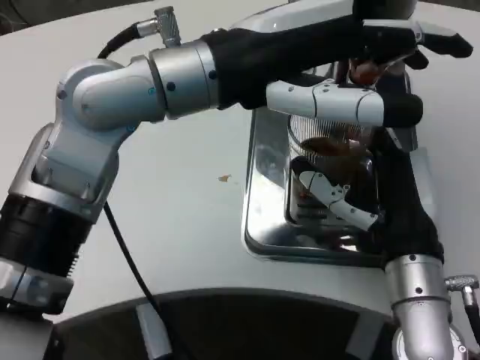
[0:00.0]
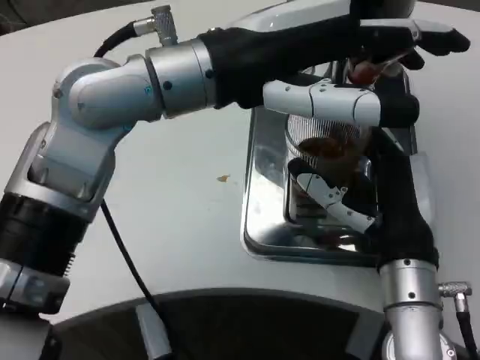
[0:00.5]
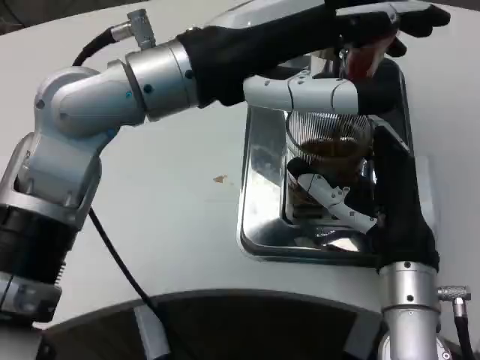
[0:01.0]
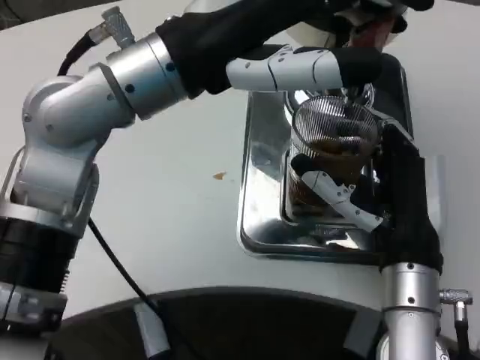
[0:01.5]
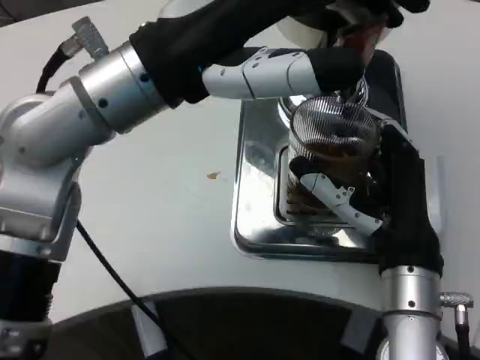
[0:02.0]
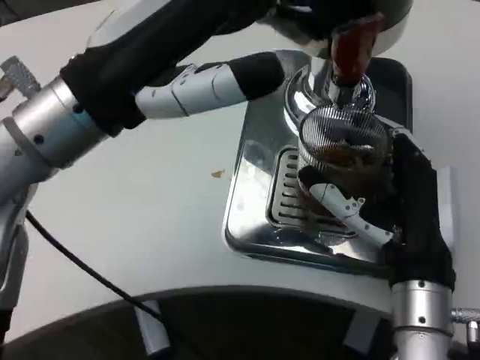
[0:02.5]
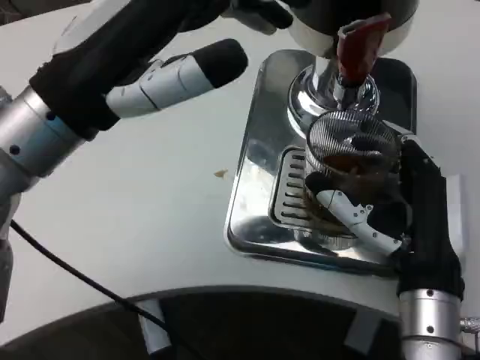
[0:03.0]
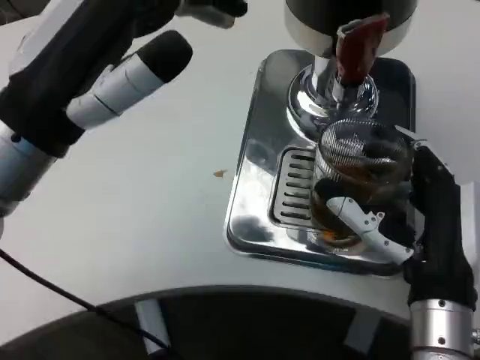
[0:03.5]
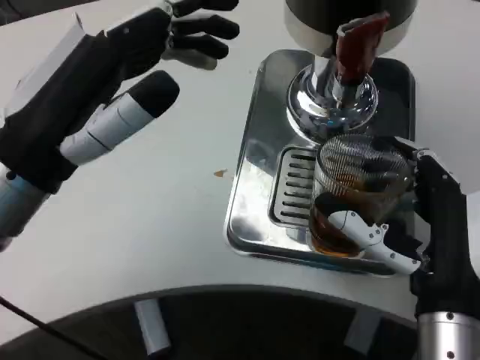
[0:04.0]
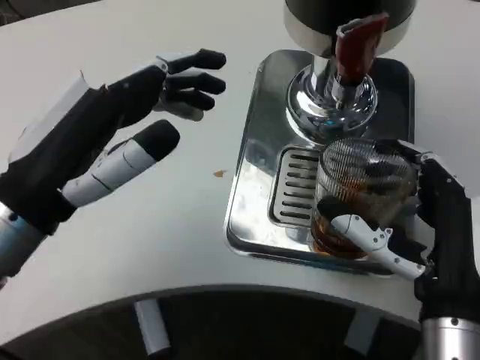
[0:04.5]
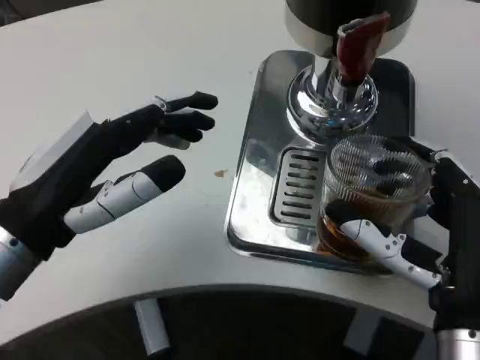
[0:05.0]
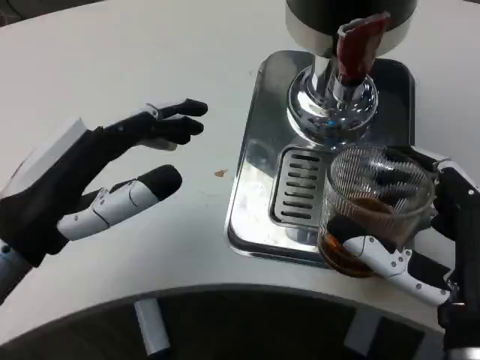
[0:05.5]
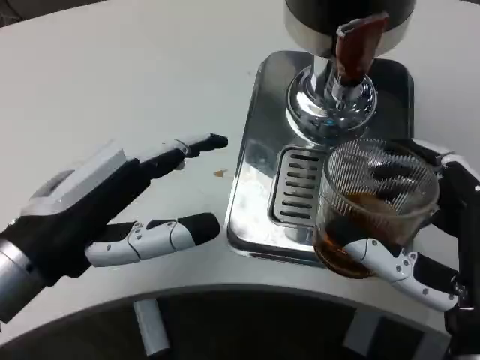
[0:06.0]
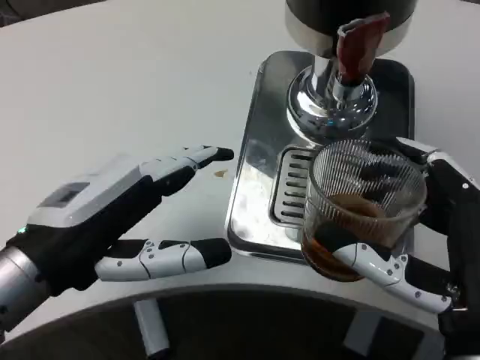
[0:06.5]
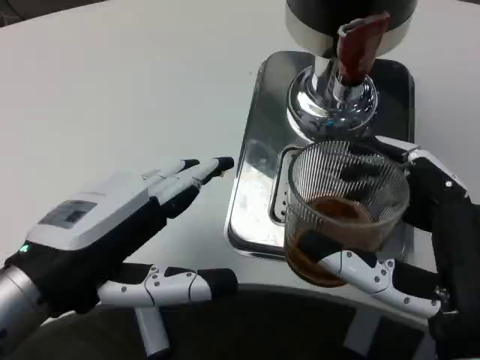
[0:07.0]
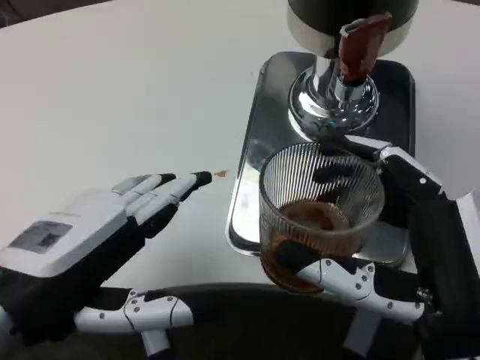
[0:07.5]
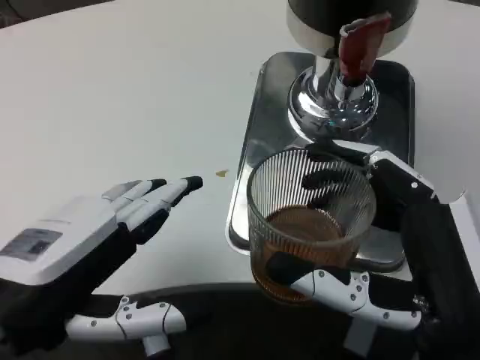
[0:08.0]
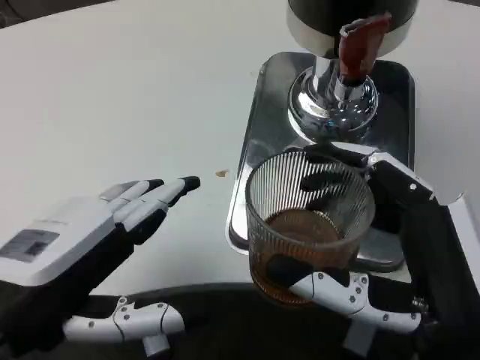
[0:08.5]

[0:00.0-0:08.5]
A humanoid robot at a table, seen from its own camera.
Task of the whole recording: Grasp the cup under the faucet to collect the drink, then remove the cup.
0:02.0 to 0:04.0: The left hand moves downward and to the left, roughly 10 cm.
0:04.0 to 0:06.5: The right hand moves backward, some 5 cm; the left hand moves about 5 cm.
0:06.5 to 0:08.5: The left hand ends up about 5 cm from where it was.

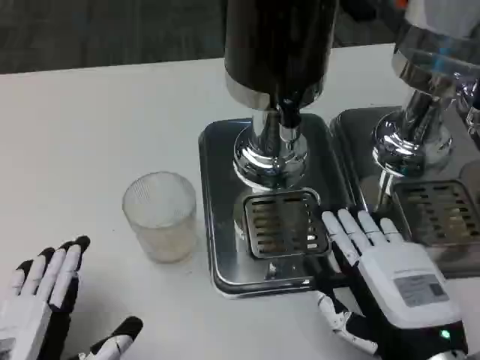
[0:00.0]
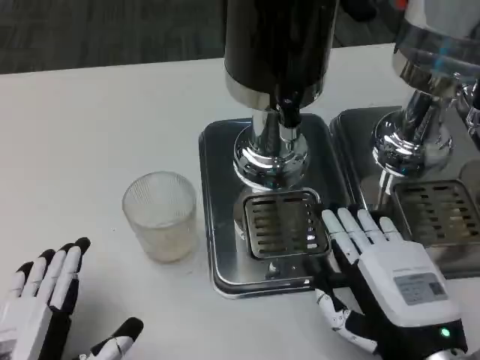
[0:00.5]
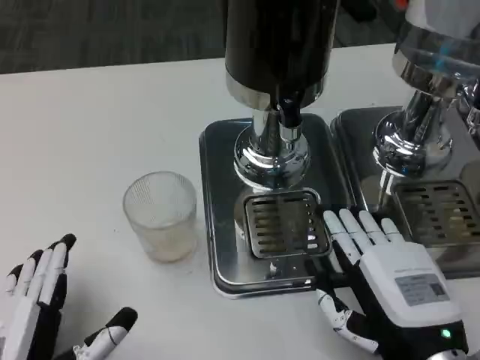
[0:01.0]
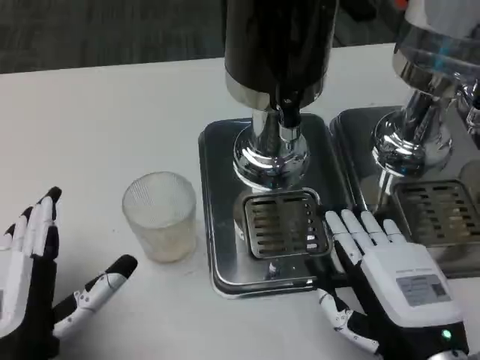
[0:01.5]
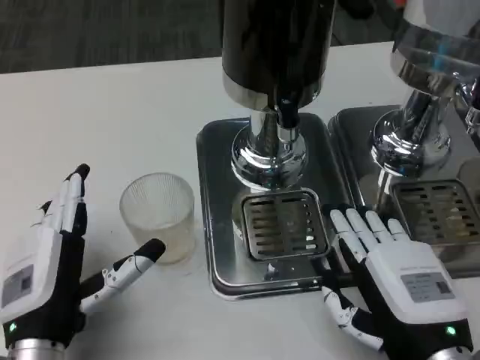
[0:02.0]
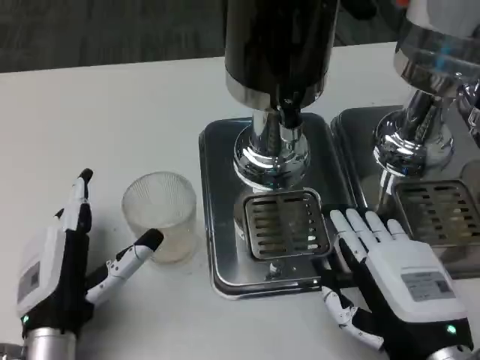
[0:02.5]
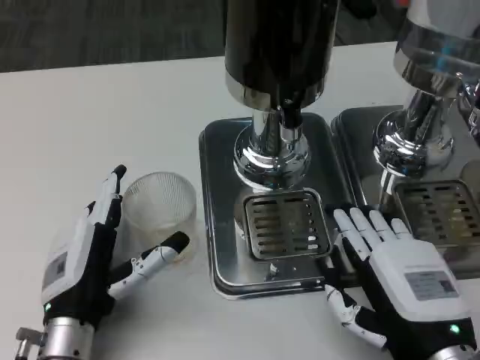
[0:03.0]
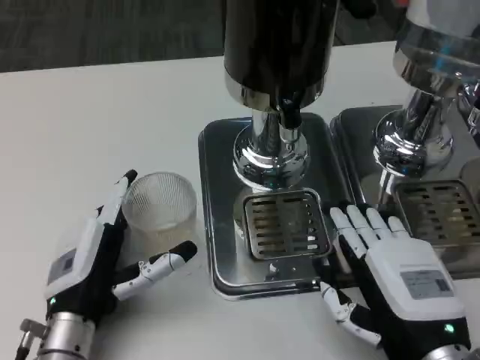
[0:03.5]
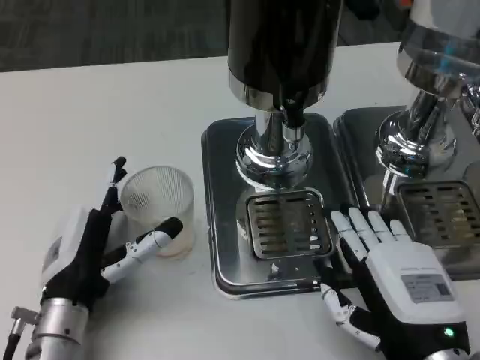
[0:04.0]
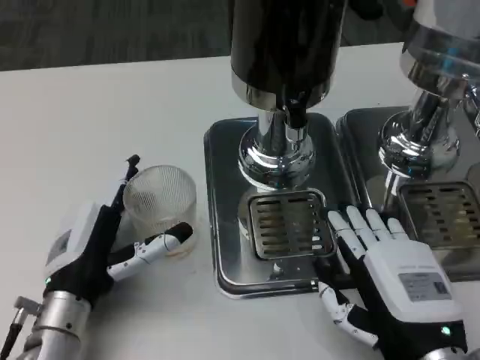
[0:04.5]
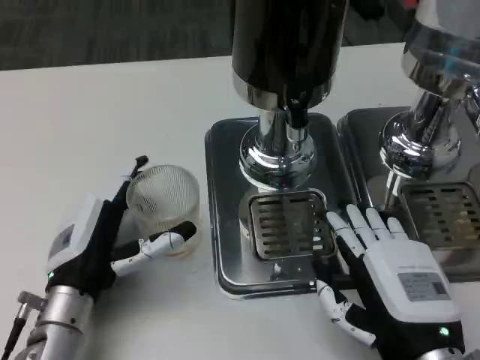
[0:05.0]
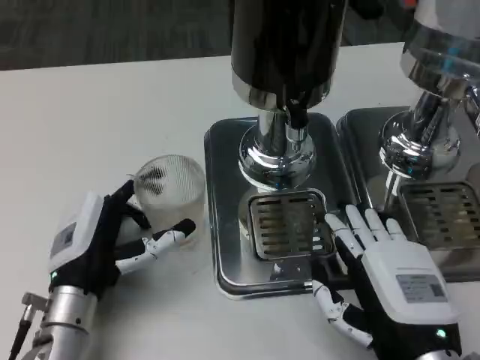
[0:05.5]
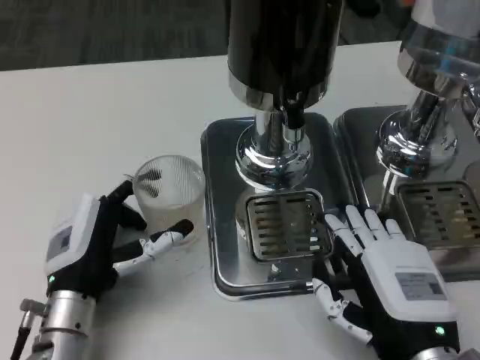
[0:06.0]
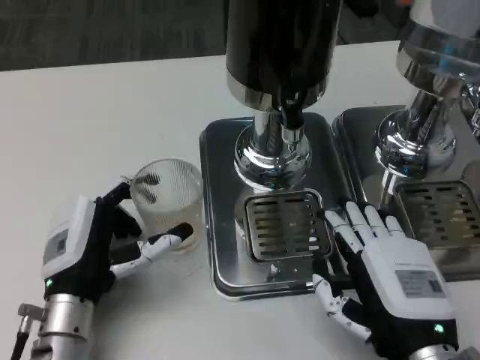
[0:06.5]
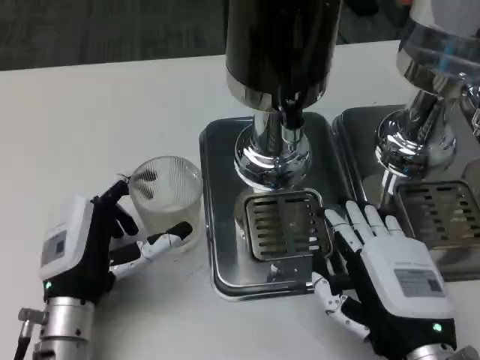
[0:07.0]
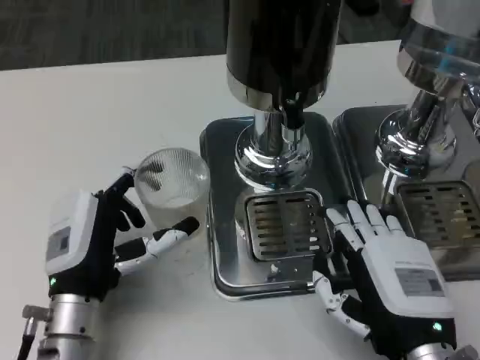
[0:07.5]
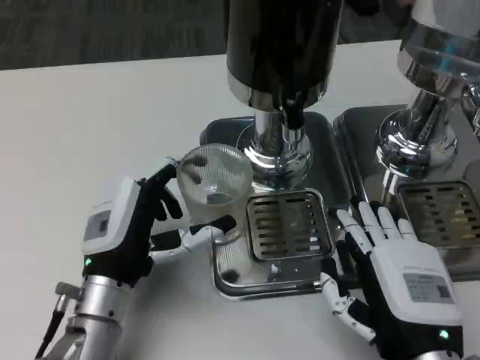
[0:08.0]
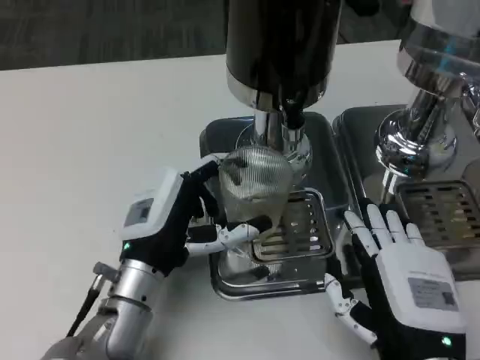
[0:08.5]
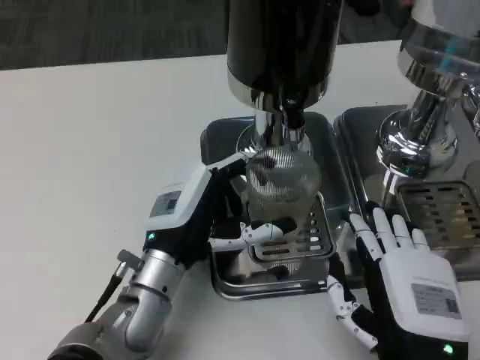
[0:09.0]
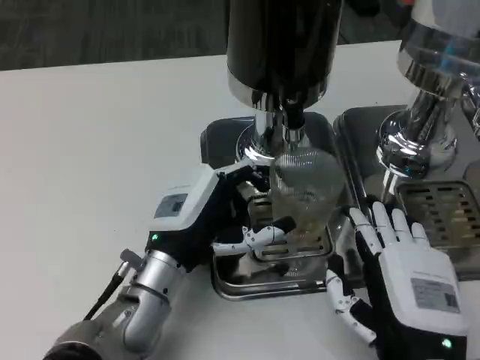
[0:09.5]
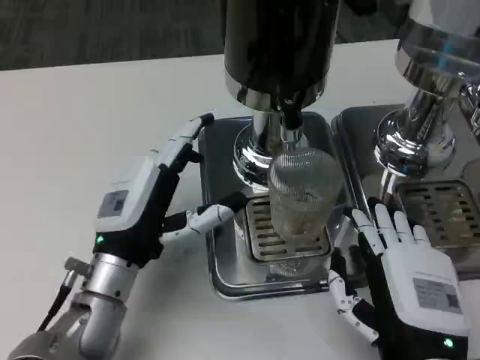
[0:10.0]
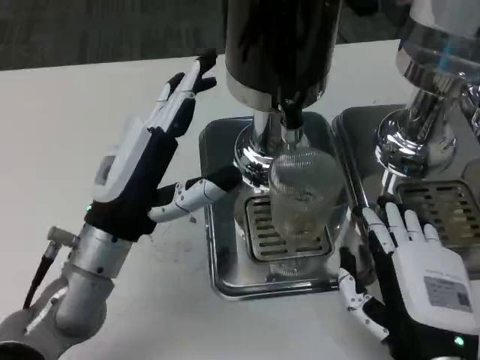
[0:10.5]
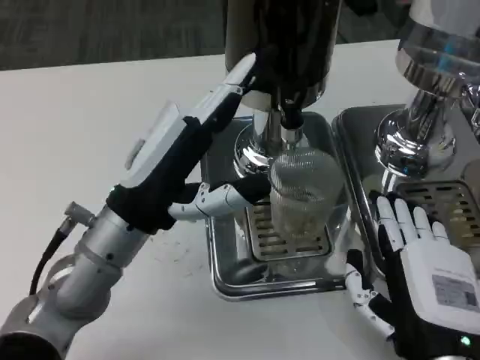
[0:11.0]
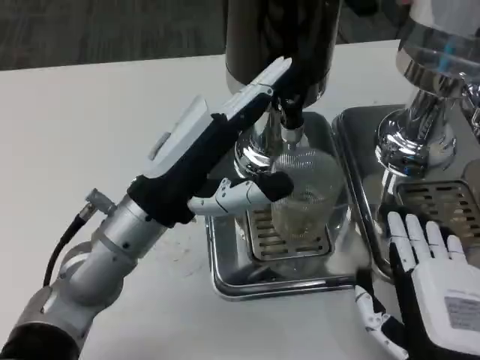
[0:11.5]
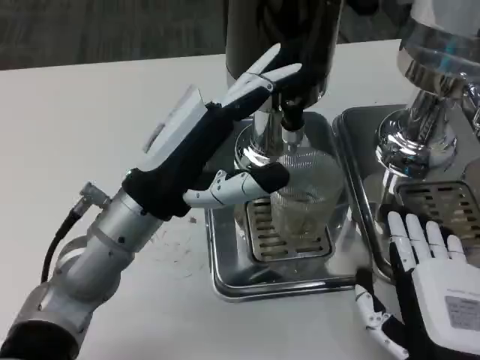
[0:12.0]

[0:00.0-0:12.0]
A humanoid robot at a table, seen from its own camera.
Task of the whole recording: Grasp the cup under the faucet to collect the drink, then remove the cup.
0:00.0 to 0:02.0: The left hand goes approximately 5 cm forward.
0:02.0 to 0:04.0: The left hand moves forward, roughly 5 cm.
0:04.0 to 0:06.0: The hands move only a little.
0:10.0 to 0:12.0: The left hand shifts about 10 cm upward.

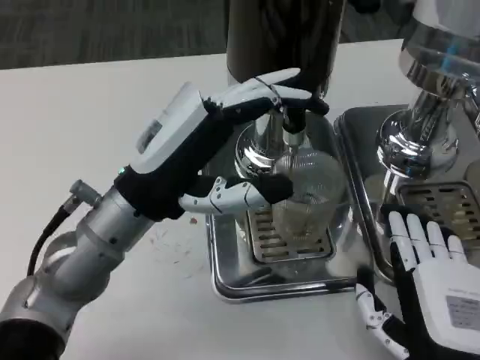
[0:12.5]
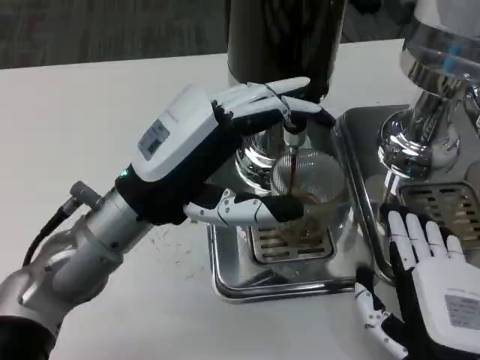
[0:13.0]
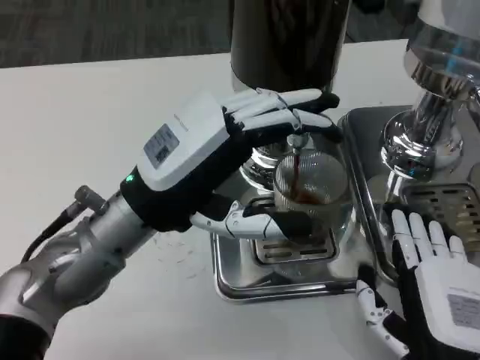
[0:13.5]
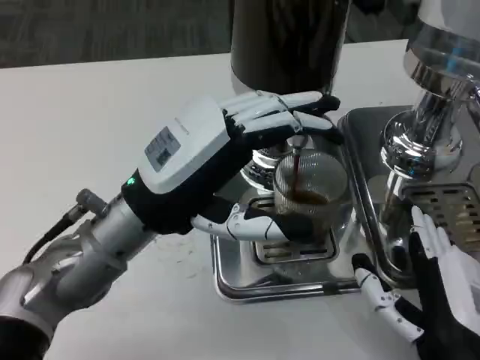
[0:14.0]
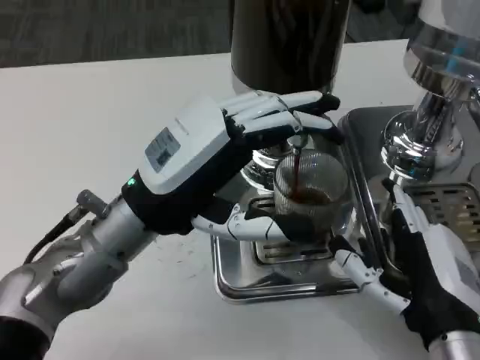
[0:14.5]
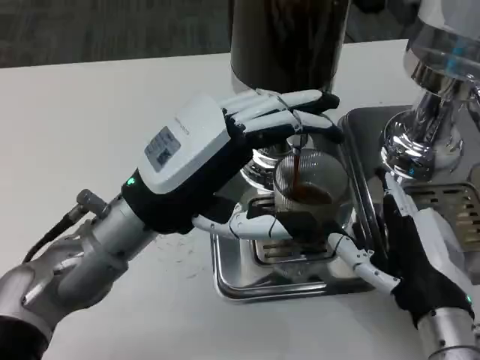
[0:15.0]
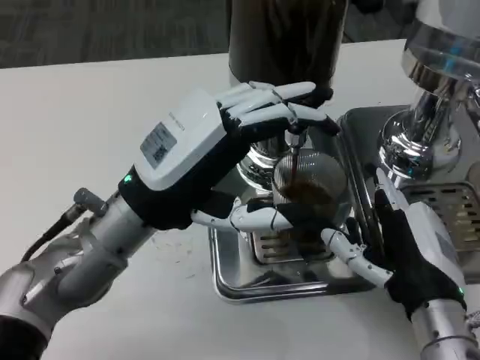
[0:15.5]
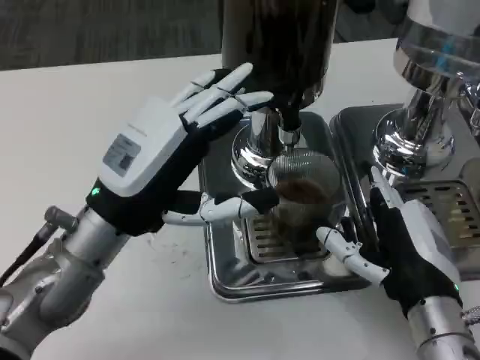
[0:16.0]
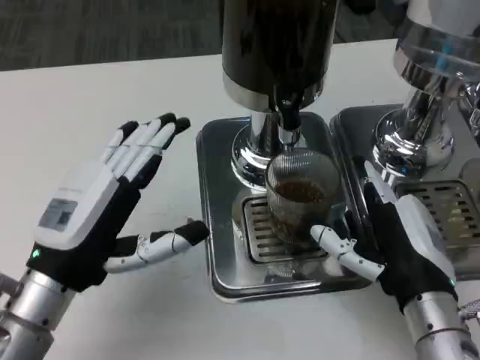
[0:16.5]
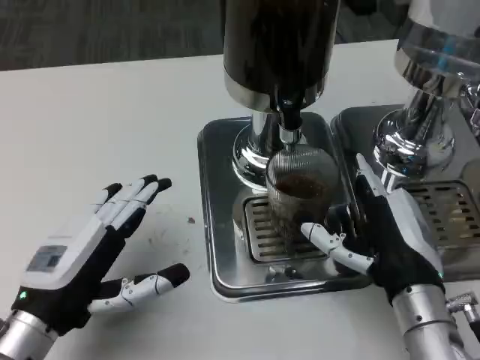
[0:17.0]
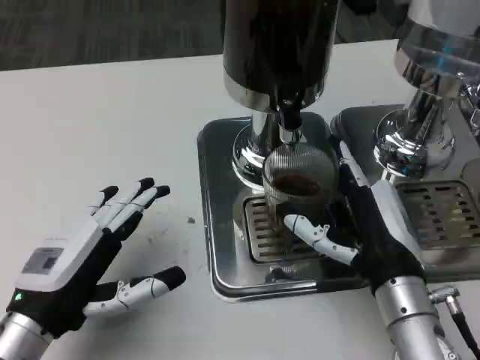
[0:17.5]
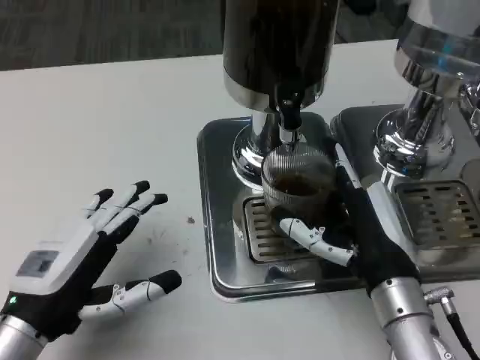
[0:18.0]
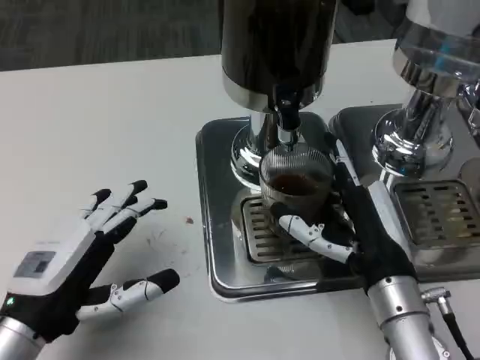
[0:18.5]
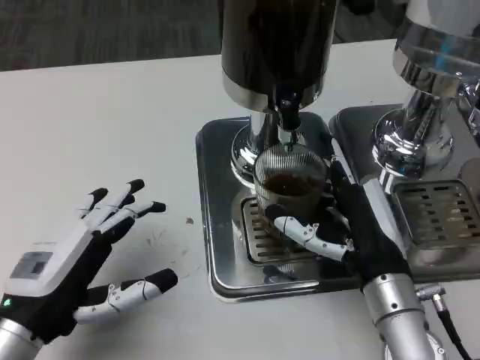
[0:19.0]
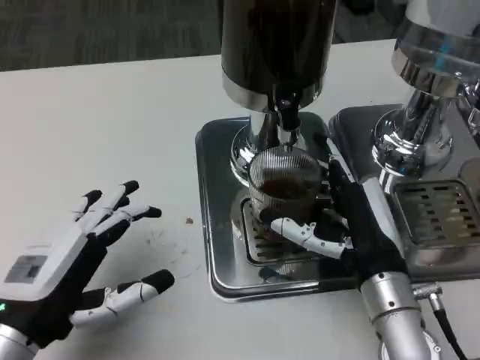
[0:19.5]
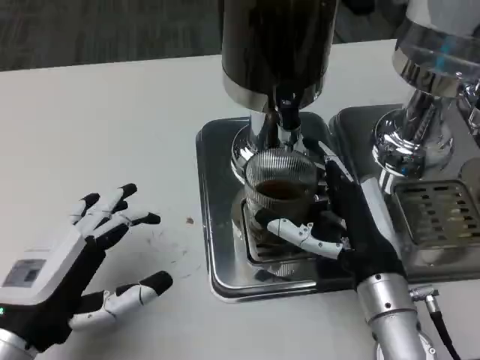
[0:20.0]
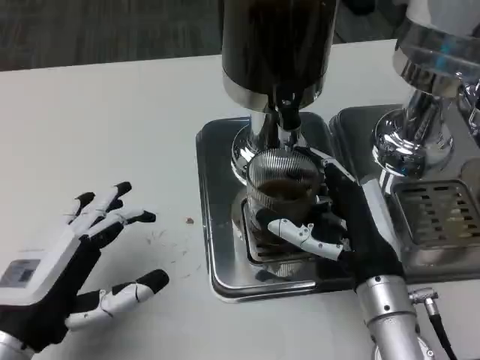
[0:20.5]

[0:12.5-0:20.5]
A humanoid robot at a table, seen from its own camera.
Task of the whole recording: Grasp the cup under the faucet to collect the drink, then remove the cup.
0:14.5 to 0:16.5: The left hand travels to the left, backward and downward by approximately 10 cm.
0:18.5 to 0:20.5: Both hands stay about where they are.
